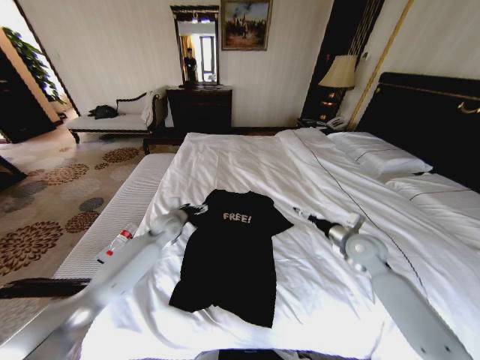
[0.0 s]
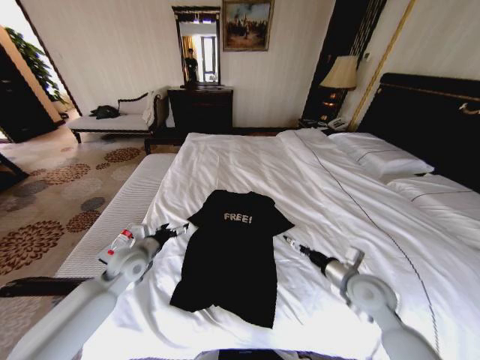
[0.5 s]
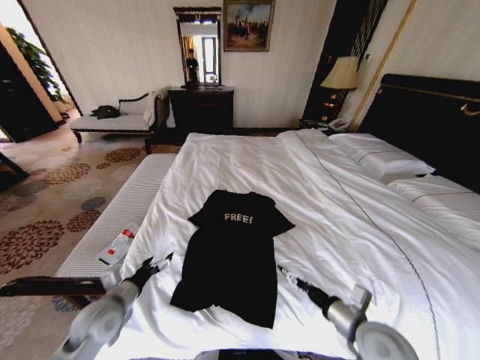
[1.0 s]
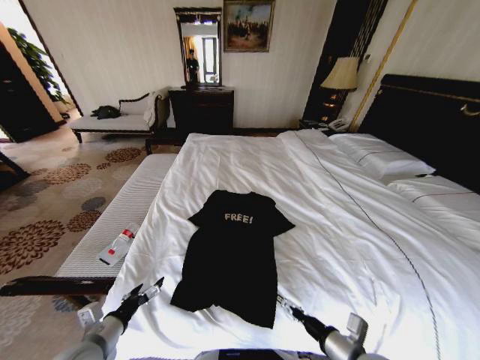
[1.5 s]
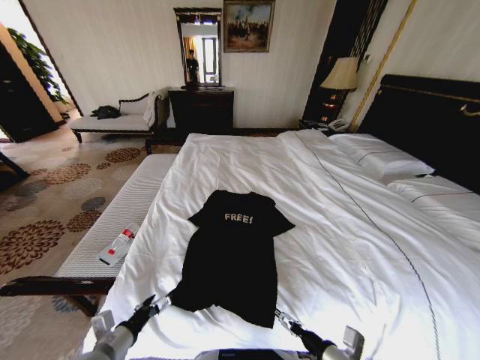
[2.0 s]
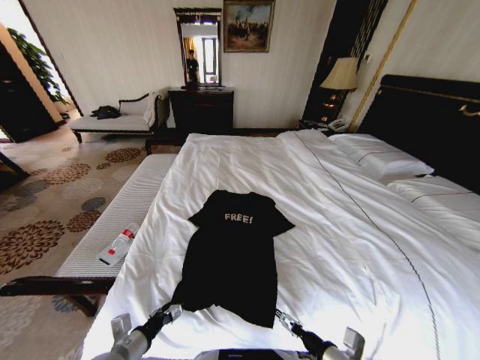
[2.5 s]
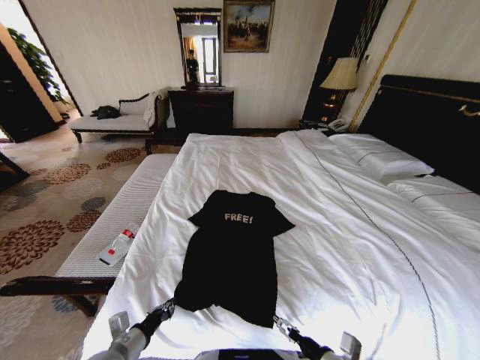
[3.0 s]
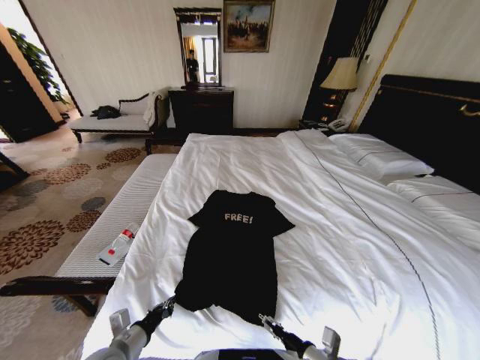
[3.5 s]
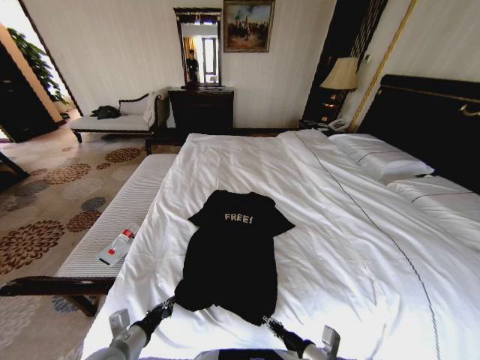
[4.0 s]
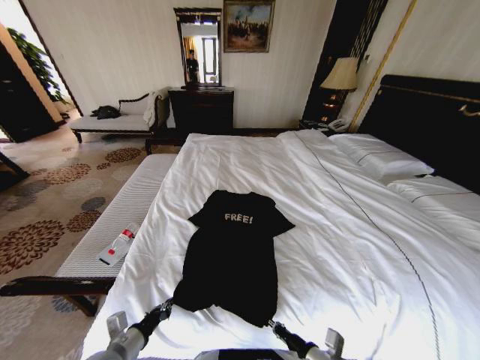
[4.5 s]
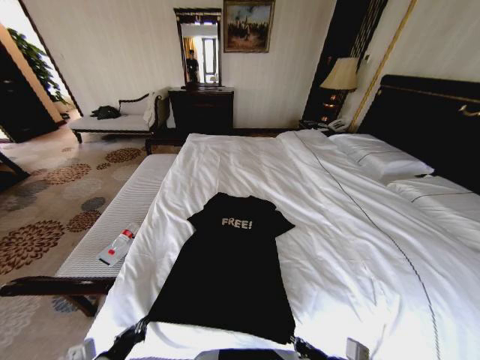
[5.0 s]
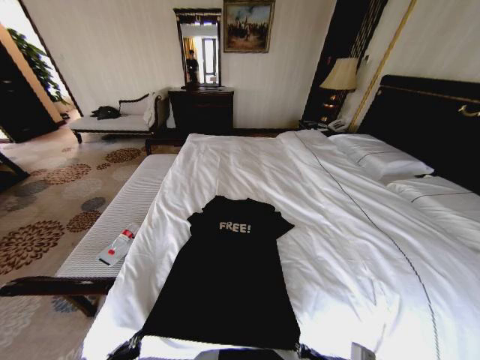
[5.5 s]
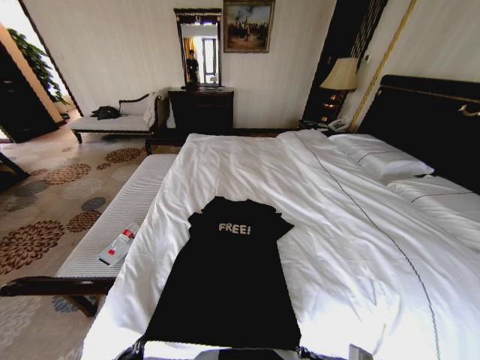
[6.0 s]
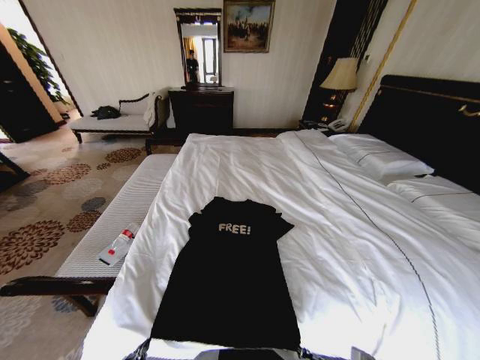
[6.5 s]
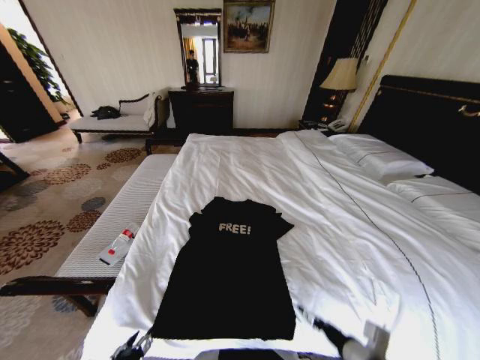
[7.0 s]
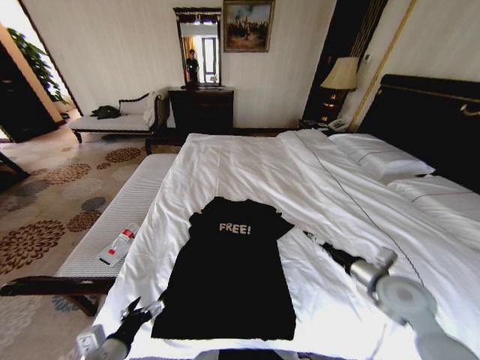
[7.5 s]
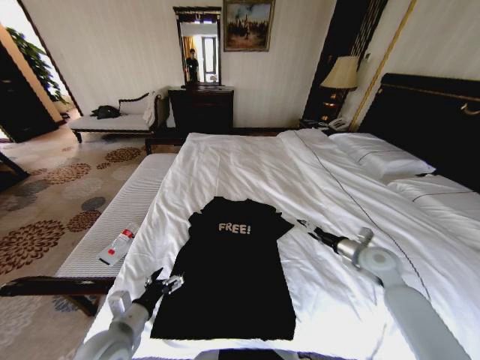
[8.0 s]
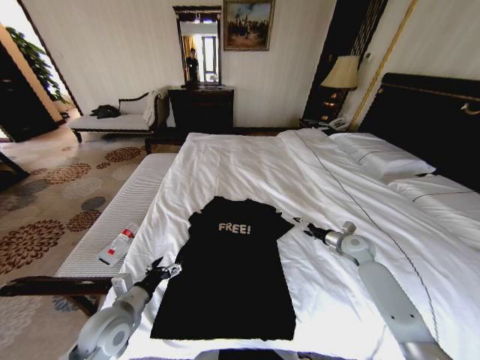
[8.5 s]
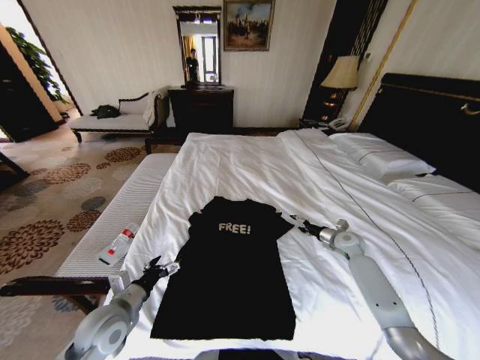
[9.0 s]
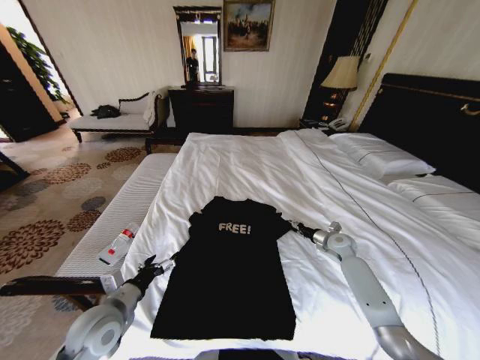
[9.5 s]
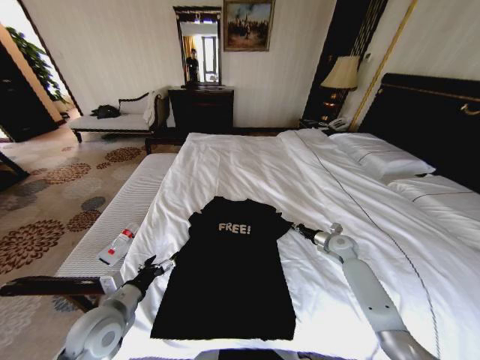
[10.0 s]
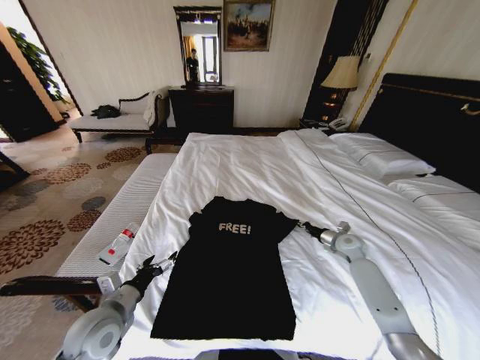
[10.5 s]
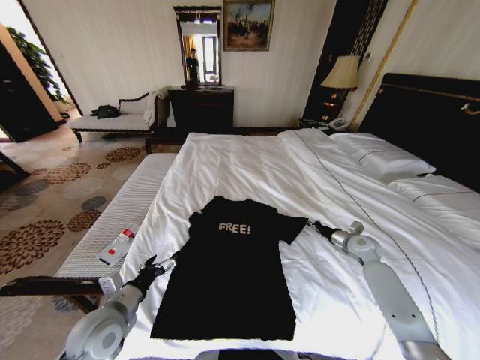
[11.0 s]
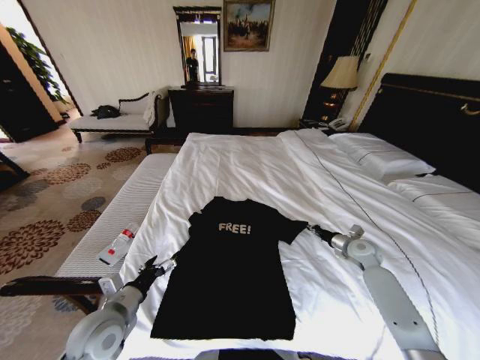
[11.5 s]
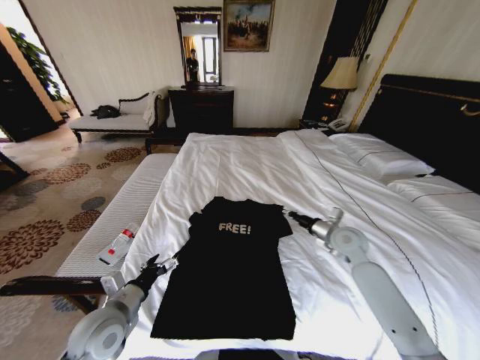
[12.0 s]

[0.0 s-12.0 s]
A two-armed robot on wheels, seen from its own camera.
Task of the whole recording: Fold the clothes on the bed.
0.0 to 2.0 s: The two grippers go roughly 30 cm backward.
2.0 to 4.0 s: The left gripper closes, while the right gripper closes.
4.0 to 6.0 s: The right gripper shifts approximately 5 cm upward, and closes its fingers, while the left gripper moves backward, approximately 10 cm.
6.0 to 8.0 s: The right gripper heads forward and to the right, covering approximately 30 cm, and opens up. Meanwhile the left gripper shifts approximately 10 cm forward, and opens.
8.0 to 10.0 s: The left gripper shifts by some 5 cm. Meanwhile the right gripper shifts approximately 15 cm forward and downward, and closes up.
10.0 to 12.0 s: The right gripper is displaced upward and to the left by about 15 cm.

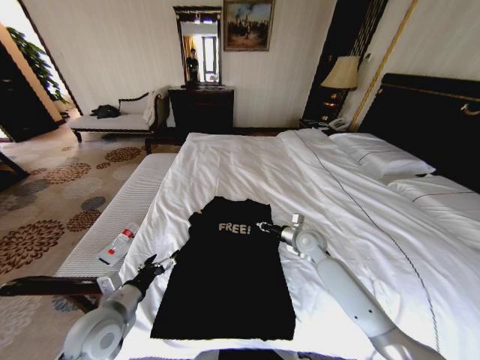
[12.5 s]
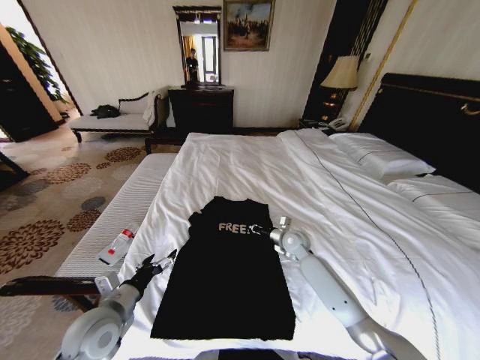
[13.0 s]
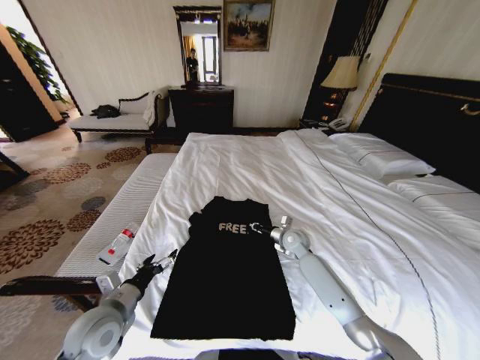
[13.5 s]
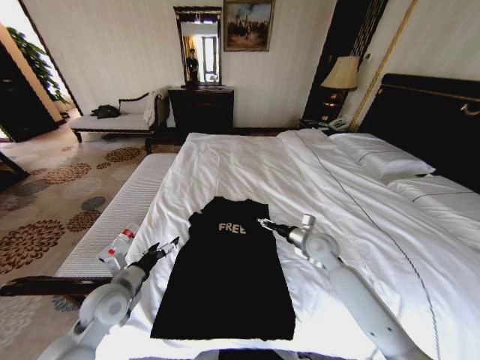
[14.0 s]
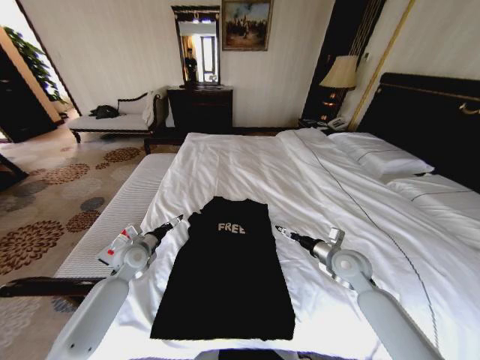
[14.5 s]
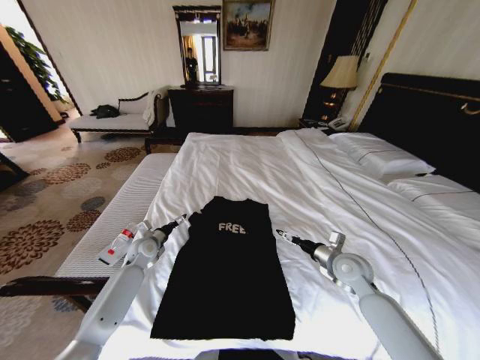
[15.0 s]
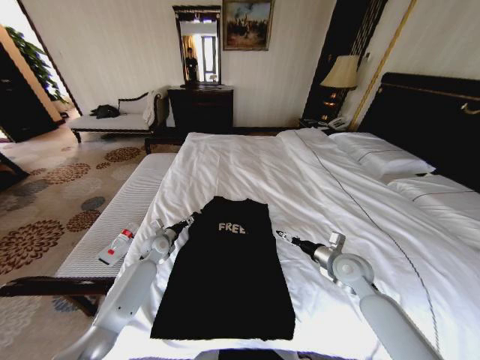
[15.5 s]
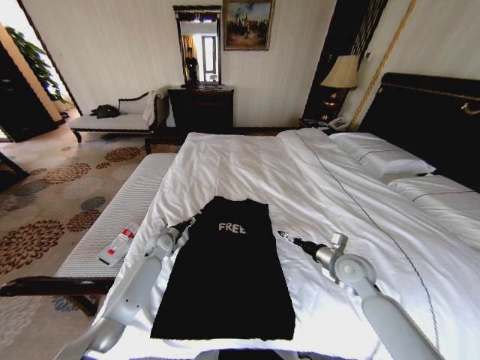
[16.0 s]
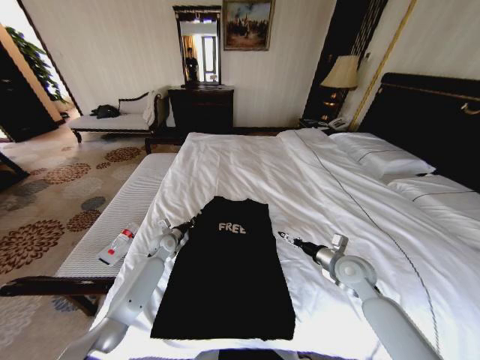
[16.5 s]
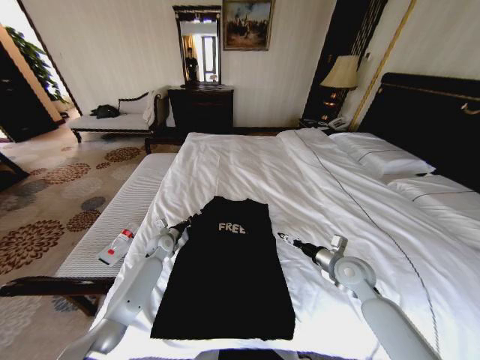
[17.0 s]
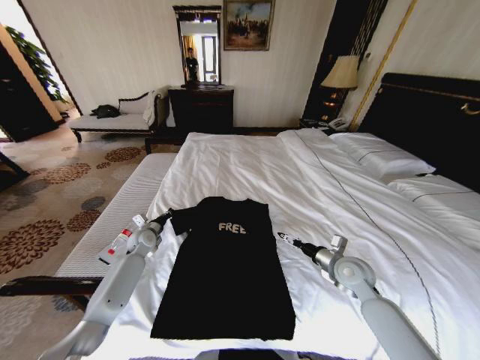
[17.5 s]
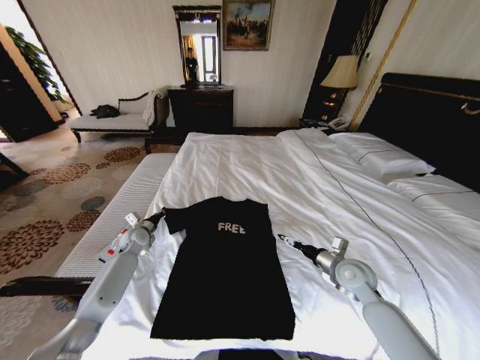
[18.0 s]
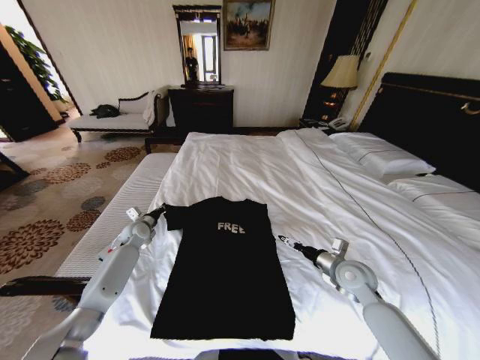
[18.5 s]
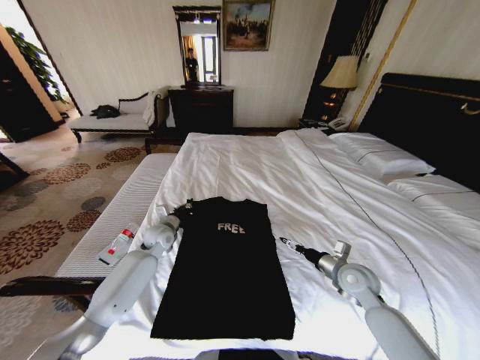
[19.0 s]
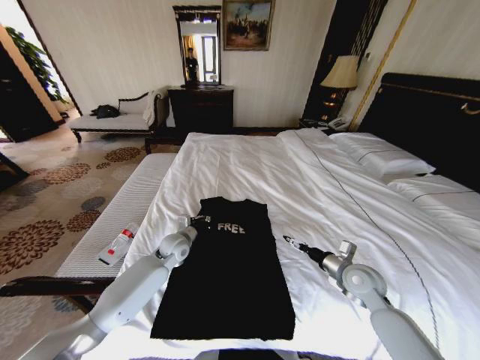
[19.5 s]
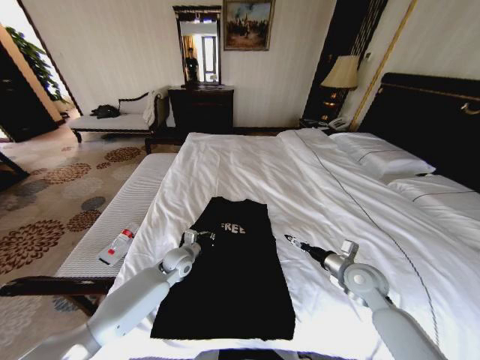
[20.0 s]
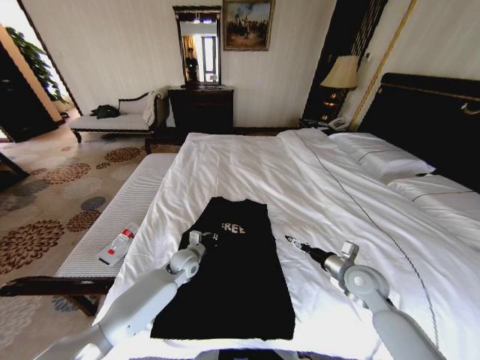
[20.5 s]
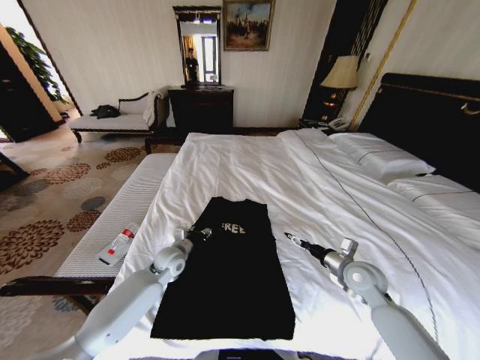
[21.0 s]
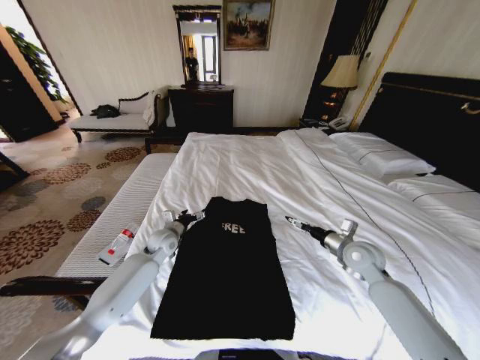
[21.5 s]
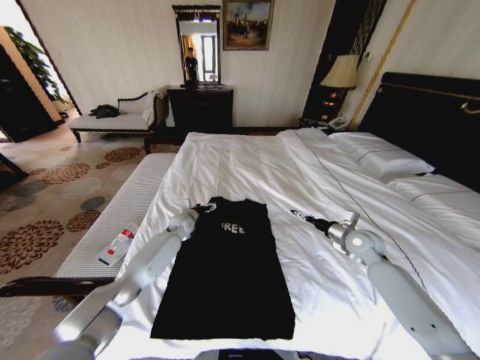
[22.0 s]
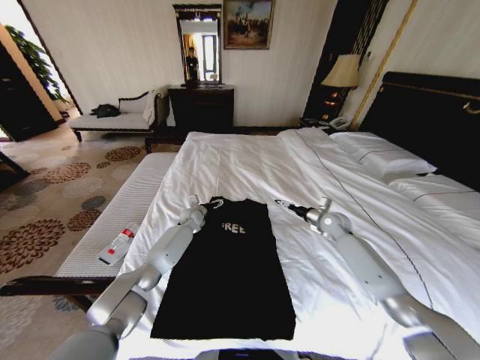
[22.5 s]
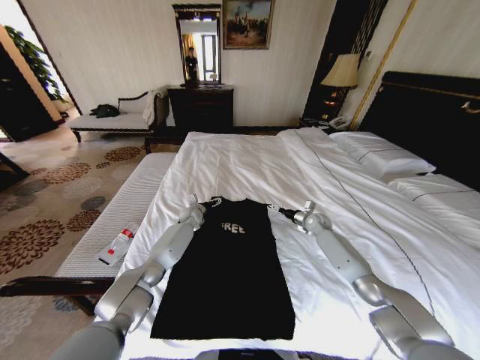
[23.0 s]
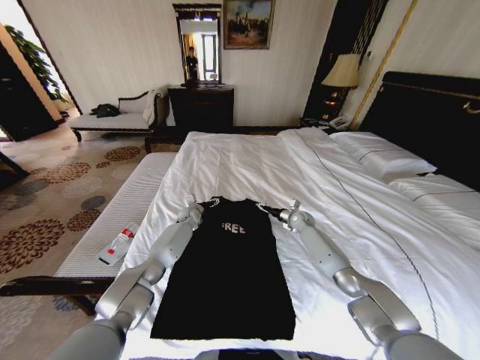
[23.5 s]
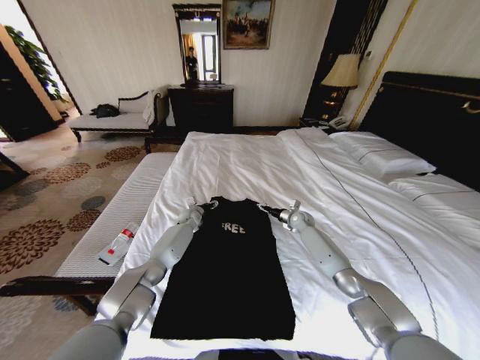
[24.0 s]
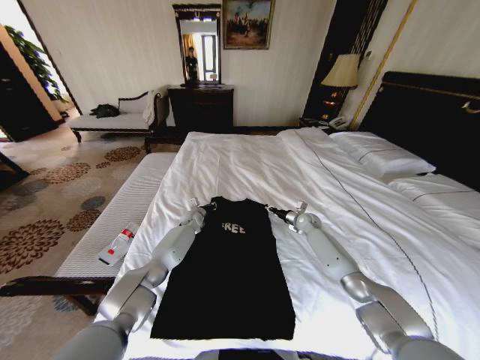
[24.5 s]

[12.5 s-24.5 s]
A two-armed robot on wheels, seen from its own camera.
Task of the whole recording: Fold the clothes on the bed.
12.5 to 14.5 s: The right gripper heads backward and to the right, covering about 10 cm, and opens; the left gripper travels forward by about 20 cm.
14.5 to 16.5 s: The left gripper is displaced forward, downward and to the right by approximately 10 cm, and closes its fingers.
16.5 to 18.5 s: The left gripper moves to the left and upward, about 10 cm.
18.5 to 20.5 s: The left gripper heads to the right and backward, covering roughly 20 cm.
20.5 to 22.5 s: Both grippers travel together forward, about 20 cm. The left gripper opens its fingers.
22.5 to 24.5 s: The left gripper closes up. The right gripper heads downward, forward and to the left, covering approximately 10 cm, and closes up.

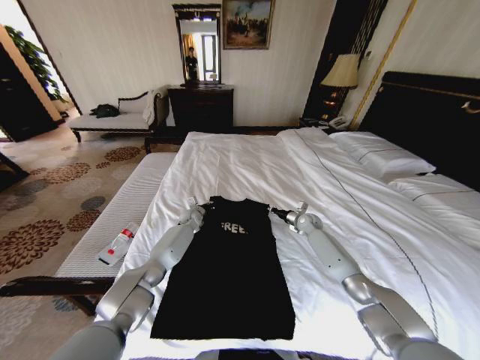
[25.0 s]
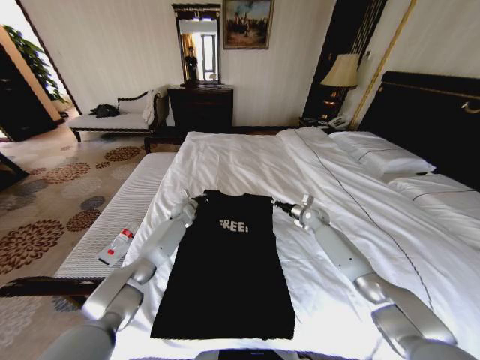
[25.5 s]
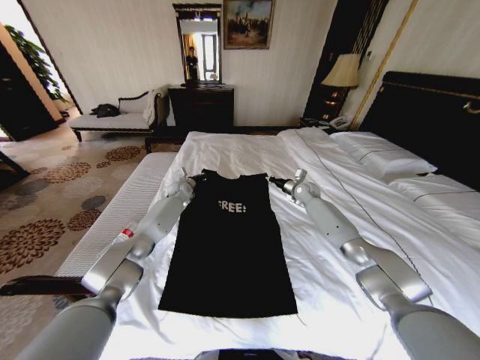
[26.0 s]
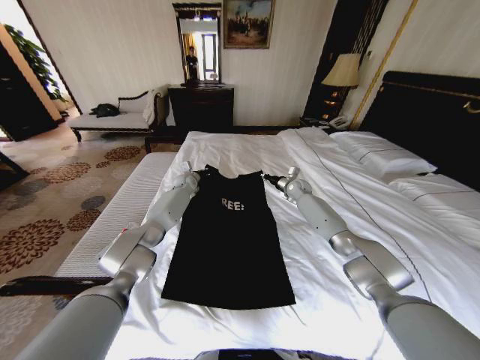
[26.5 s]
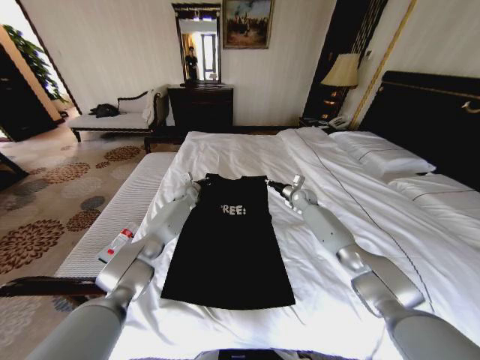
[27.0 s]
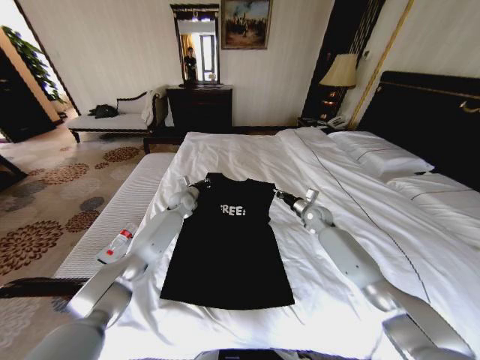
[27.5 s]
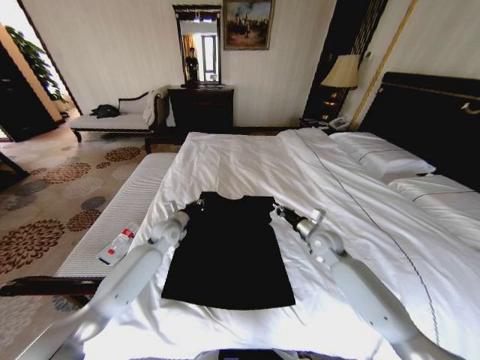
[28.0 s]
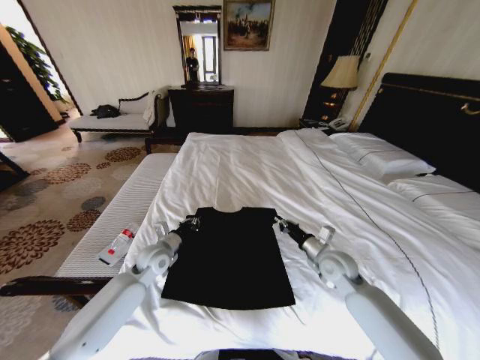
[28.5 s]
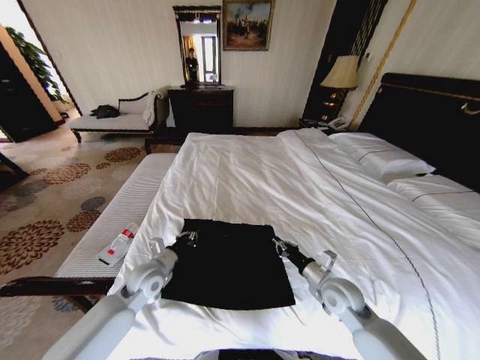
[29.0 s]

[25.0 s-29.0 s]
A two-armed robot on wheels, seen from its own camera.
Task of the whole recording: Fold the clothes on the bed.
25.0 to 27.0 s: The two grippers go some 10 cm upward and forward.
27.0 to 29.0 s: The grippers both shift backward by some 35 cm.
